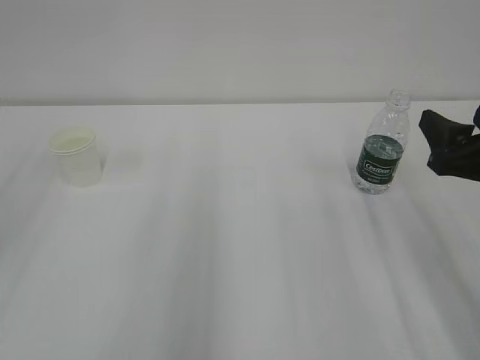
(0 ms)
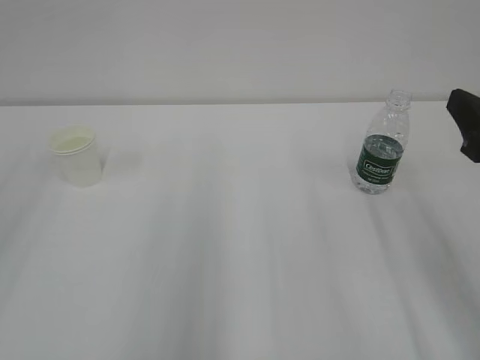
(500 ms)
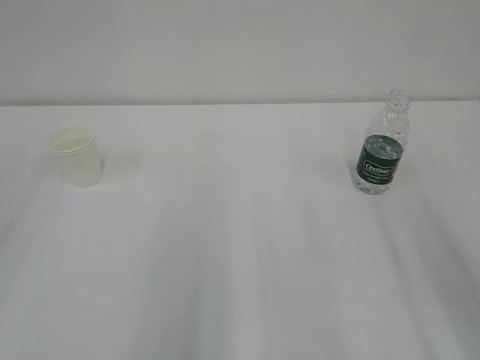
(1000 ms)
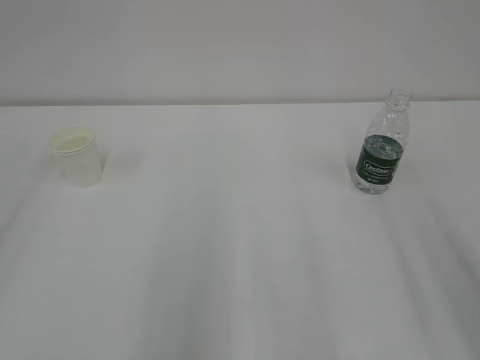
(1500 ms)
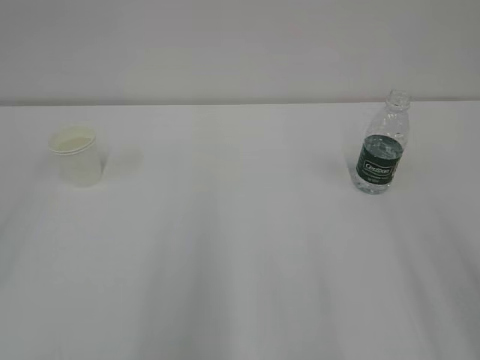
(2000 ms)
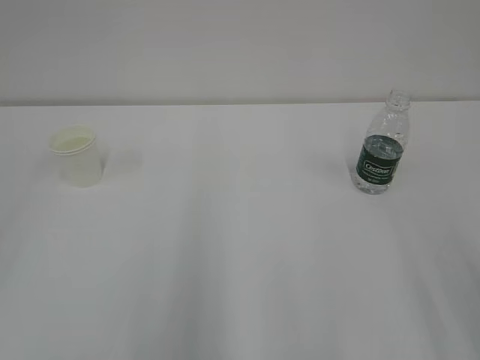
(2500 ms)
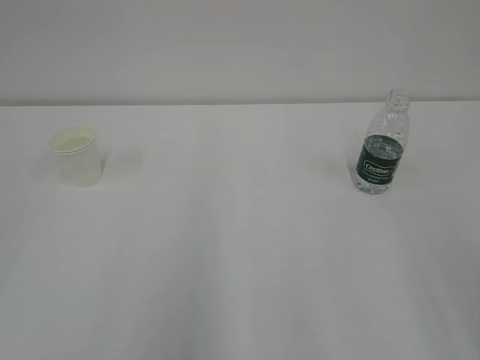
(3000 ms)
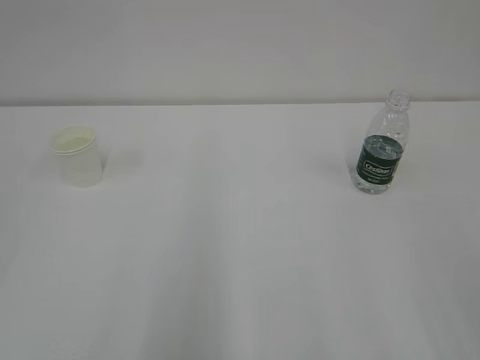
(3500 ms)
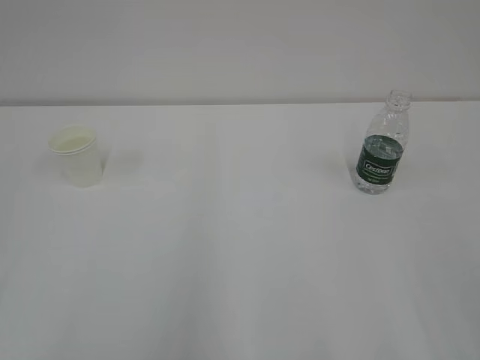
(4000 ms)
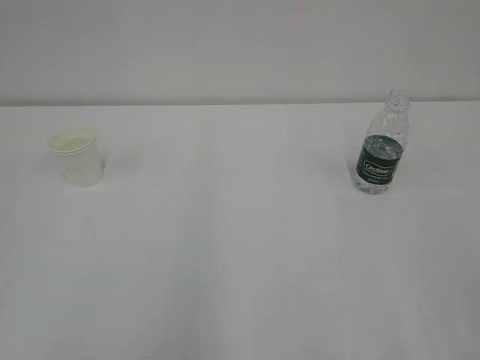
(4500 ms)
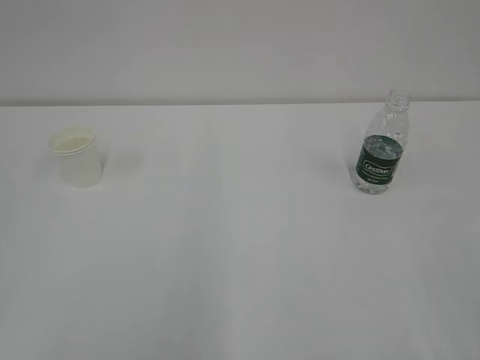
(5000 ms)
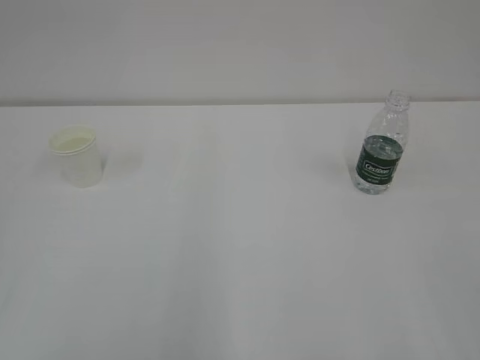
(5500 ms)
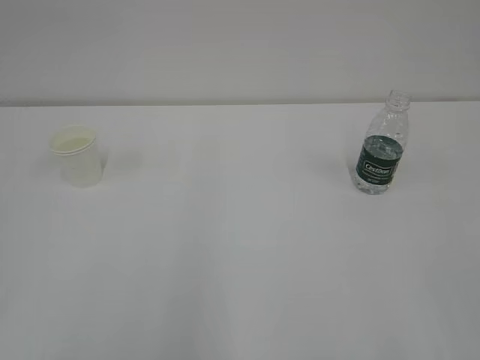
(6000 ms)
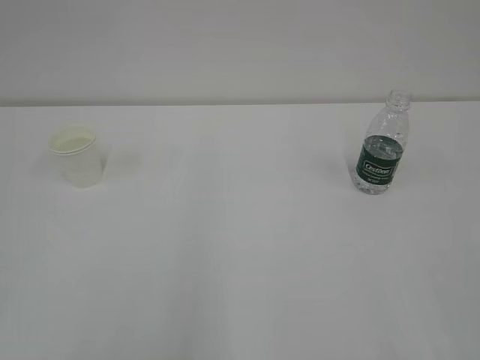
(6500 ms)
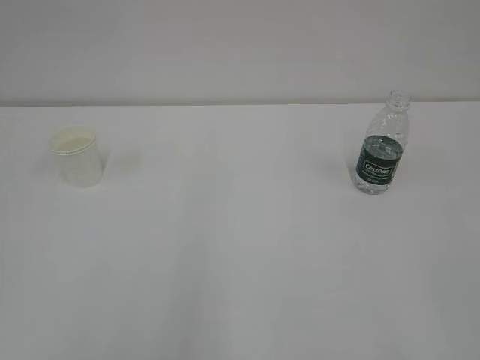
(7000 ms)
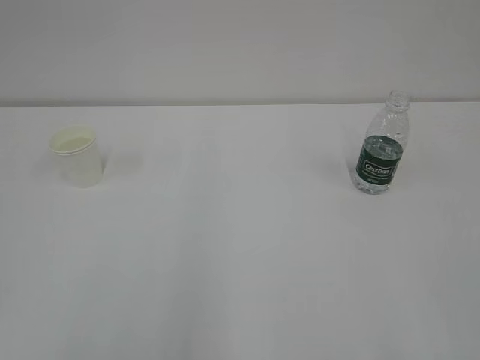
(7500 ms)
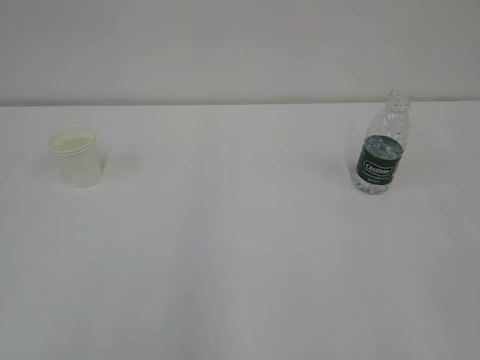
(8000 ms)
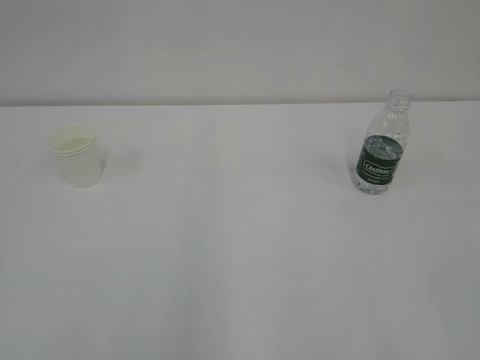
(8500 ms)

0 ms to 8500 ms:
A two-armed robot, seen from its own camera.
0 ms to 2000 ms: The right gripper is displaced backward and upward by approximately 15 cm.
